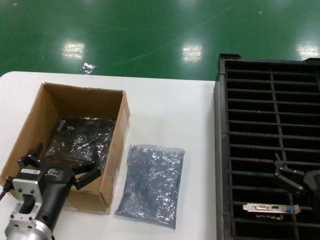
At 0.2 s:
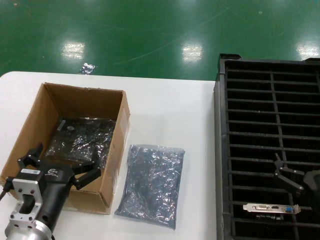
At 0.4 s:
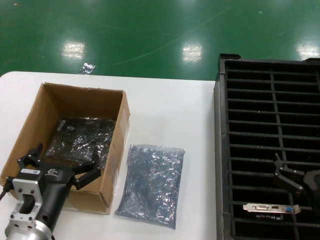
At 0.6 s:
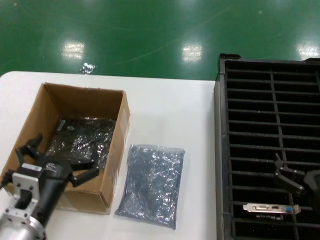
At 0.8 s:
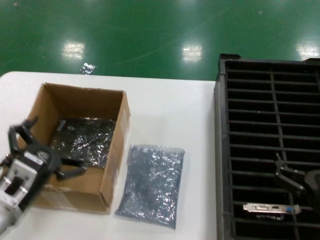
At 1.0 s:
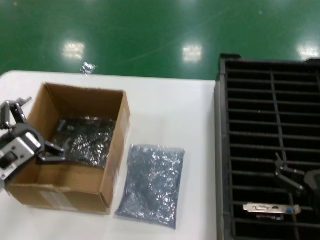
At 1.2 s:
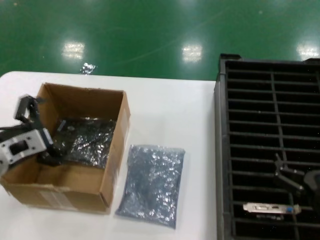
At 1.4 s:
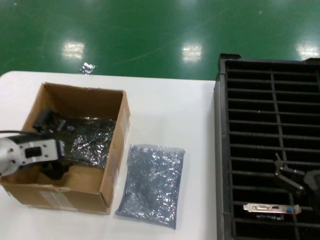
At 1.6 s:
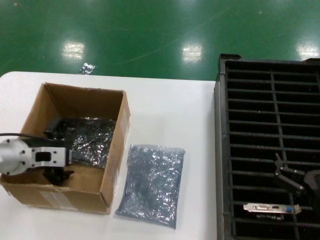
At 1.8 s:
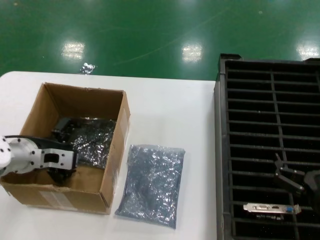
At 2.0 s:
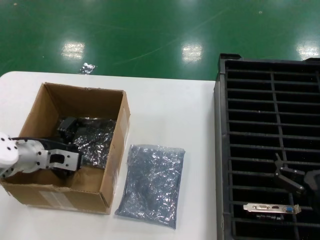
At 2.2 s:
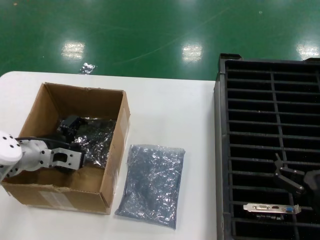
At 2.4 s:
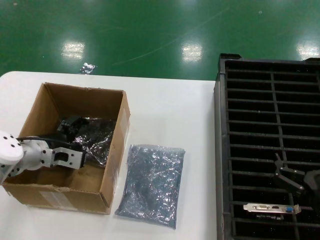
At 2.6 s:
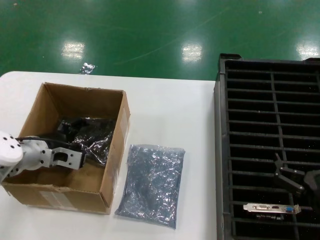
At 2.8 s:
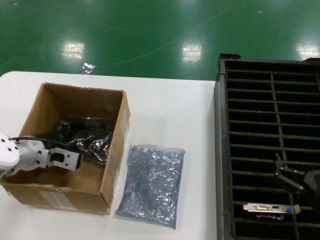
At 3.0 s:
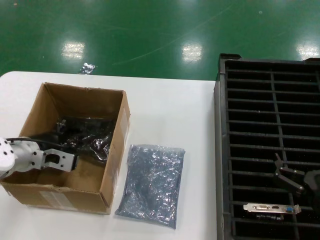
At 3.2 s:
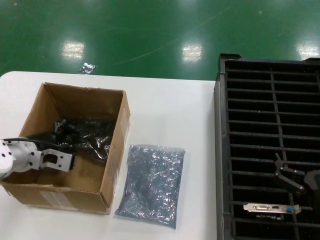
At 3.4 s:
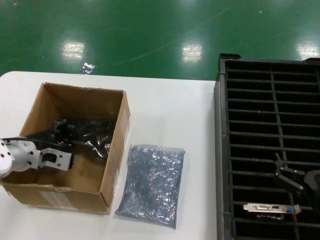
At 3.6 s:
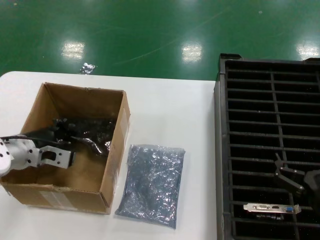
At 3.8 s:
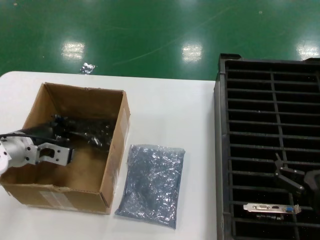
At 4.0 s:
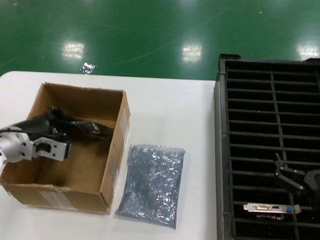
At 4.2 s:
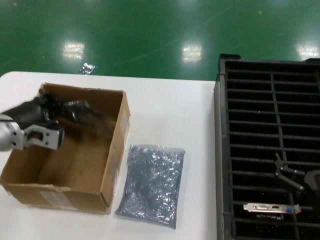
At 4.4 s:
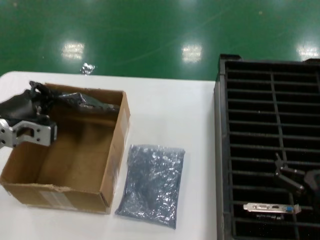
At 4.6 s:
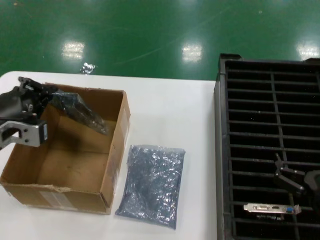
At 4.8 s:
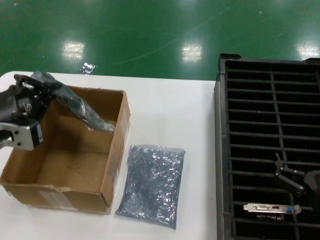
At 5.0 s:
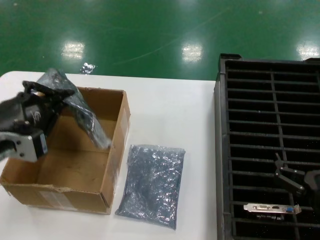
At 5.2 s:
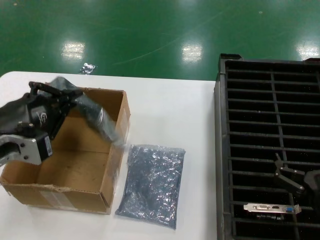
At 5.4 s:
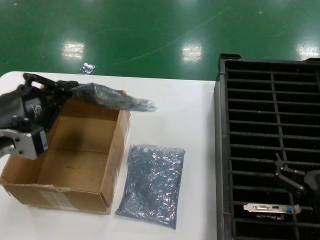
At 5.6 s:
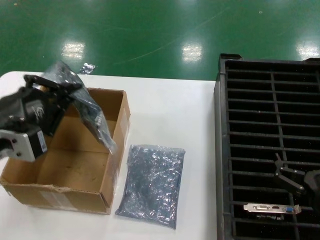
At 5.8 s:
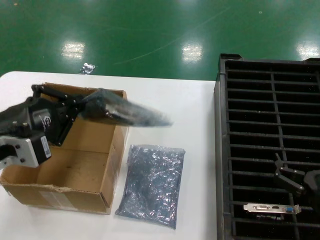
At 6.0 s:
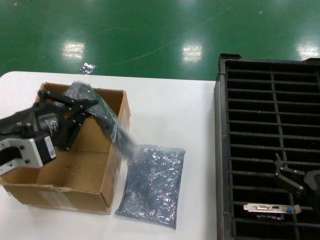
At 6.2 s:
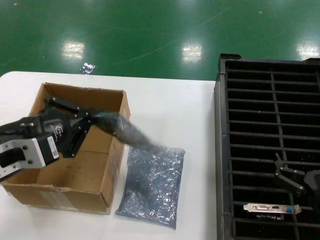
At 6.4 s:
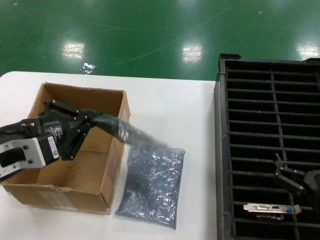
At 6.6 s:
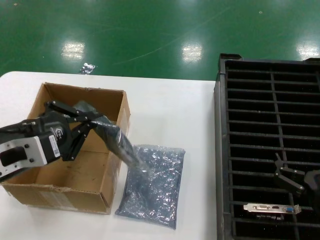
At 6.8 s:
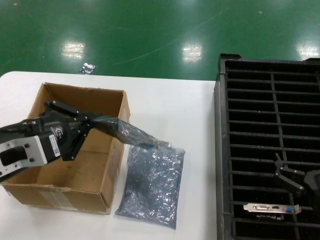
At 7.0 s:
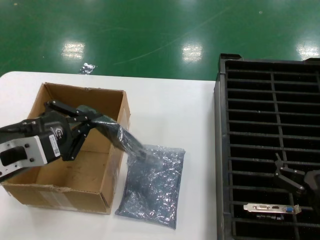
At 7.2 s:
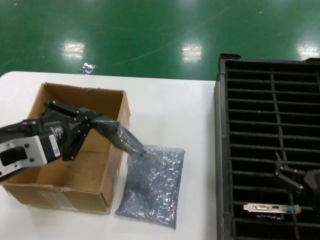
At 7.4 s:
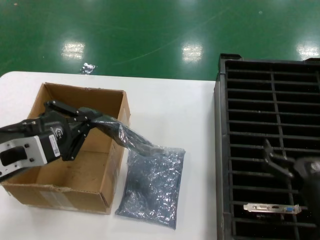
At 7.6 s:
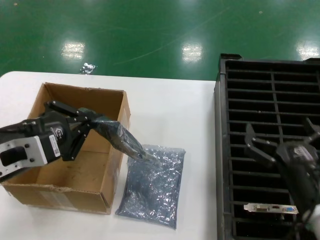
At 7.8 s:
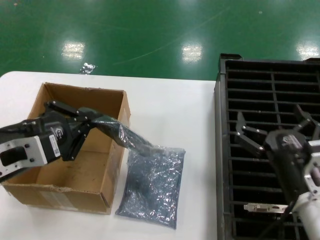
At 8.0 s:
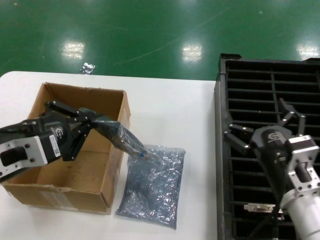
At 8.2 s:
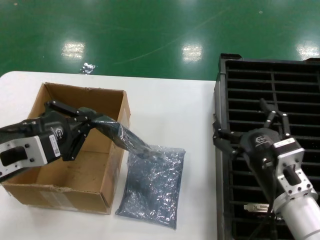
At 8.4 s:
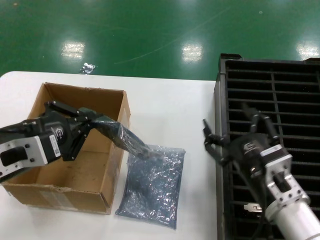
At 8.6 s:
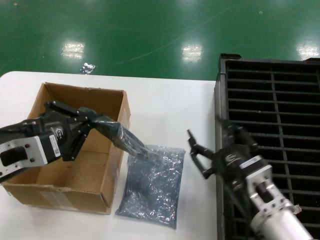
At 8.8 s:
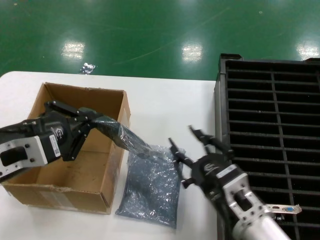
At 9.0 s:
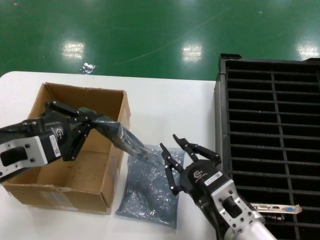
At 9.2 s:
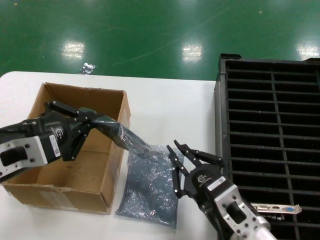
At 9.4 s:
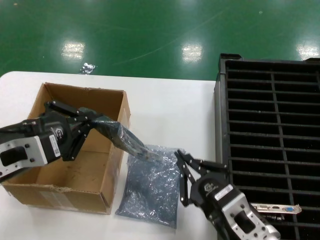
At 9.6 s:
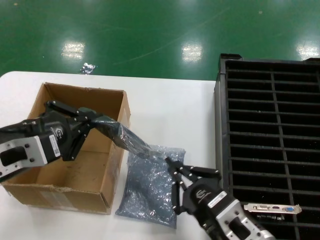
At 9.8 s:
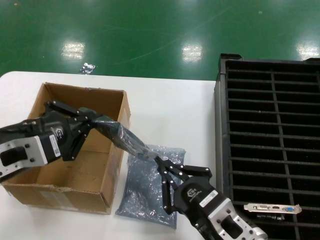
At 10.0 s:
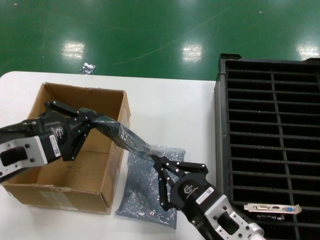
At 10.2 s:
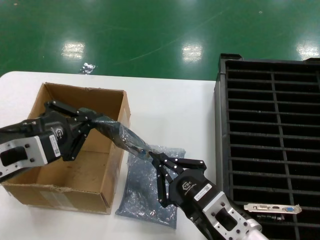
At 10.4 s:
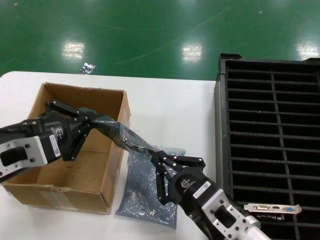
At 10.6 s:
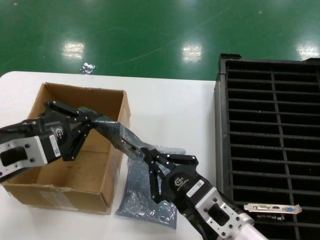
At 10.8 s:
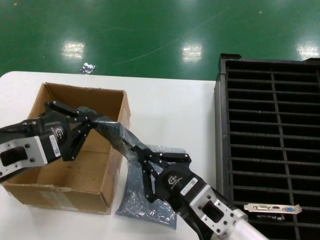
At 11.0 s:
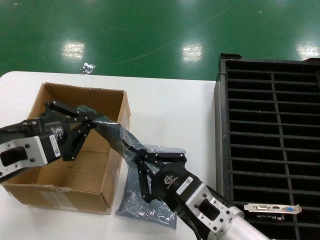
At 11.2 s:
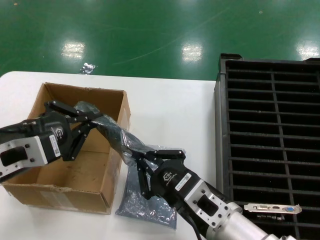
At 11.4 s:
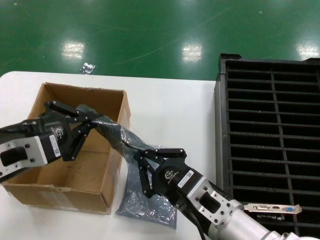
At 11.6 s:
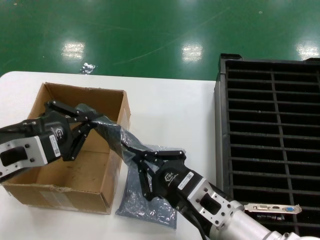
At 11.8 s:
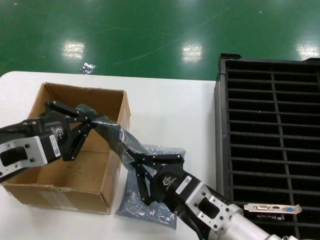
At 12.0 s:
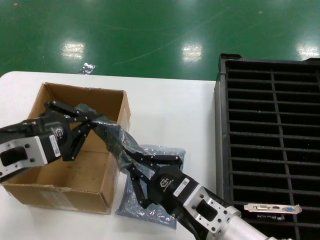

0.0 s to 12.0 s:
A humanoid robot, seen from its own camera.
Task of the whole recording: take out graphics card from box remove packaging put into black container.
Step, 0.0 to 3.6 s: Grasp the bag.
Step, 3.8 to 6.8 s: Lift the bag.
0.0 to 1.6 s: The left hand heads forward, to the left and upward, covering approximately 20 cm.
1.6 to 3.0 s: There are only small adjustments of the hands.
3.0 to 4.4 s: The left hand is displaced upward and backward by approximately 10 cm.
4.4 to 6.0 s: The left hand moves backward, some 15 cm.
6.0 to 7.6 s: The right hand shifts by about 5 cm.
7.6 to 9.0 s: The right hand goes roughly 10 cm to the left.
9.0 to 12.0 s: The hands move only a little.

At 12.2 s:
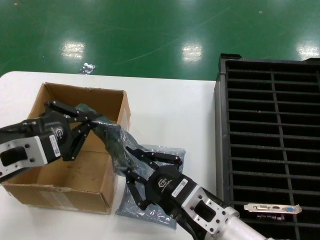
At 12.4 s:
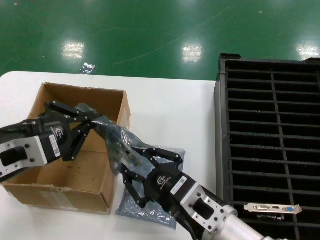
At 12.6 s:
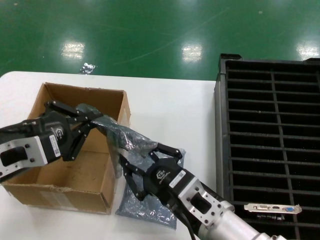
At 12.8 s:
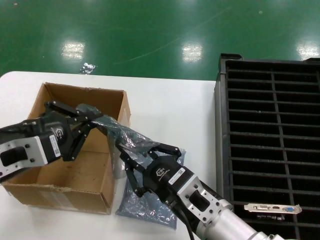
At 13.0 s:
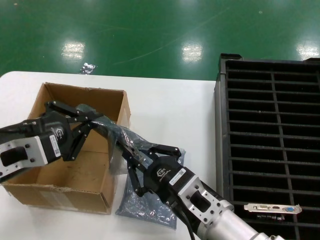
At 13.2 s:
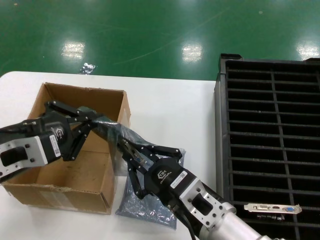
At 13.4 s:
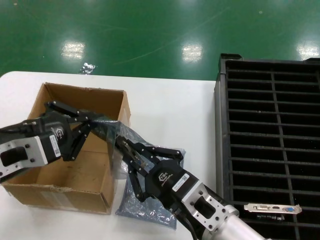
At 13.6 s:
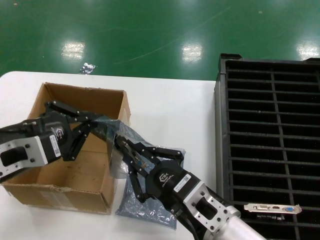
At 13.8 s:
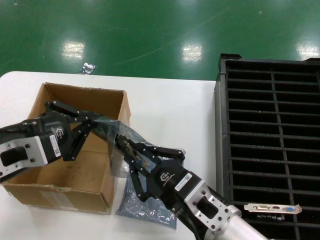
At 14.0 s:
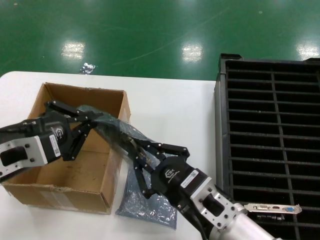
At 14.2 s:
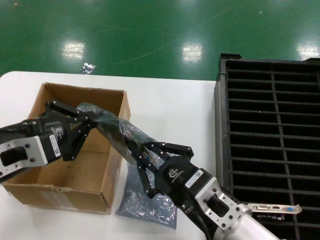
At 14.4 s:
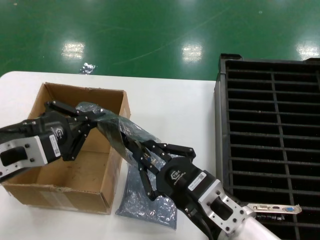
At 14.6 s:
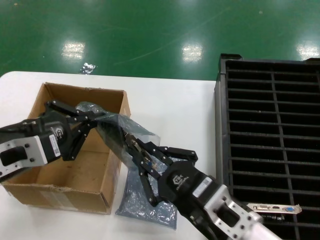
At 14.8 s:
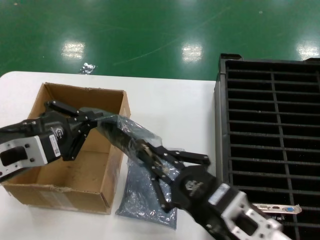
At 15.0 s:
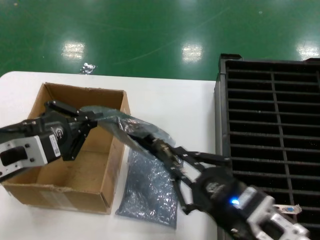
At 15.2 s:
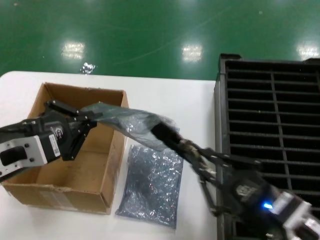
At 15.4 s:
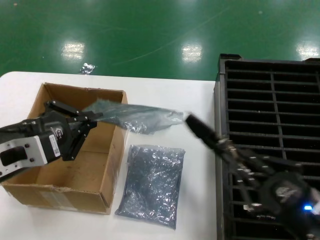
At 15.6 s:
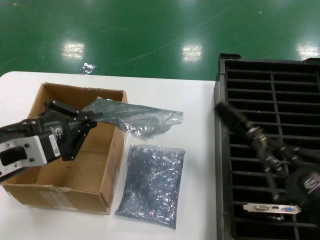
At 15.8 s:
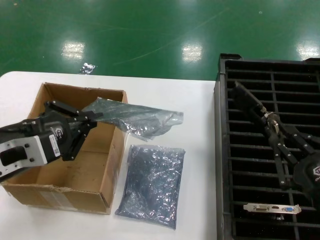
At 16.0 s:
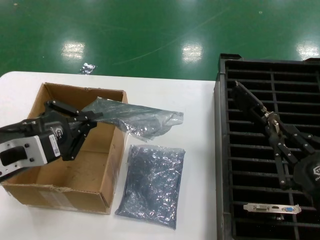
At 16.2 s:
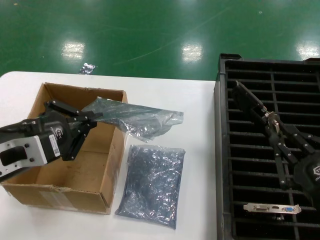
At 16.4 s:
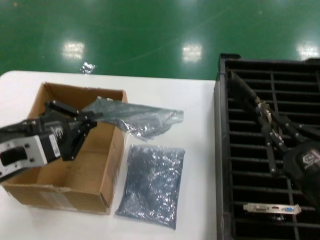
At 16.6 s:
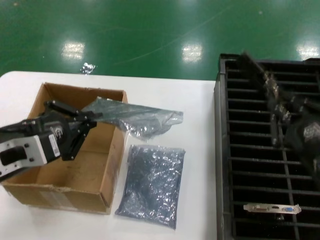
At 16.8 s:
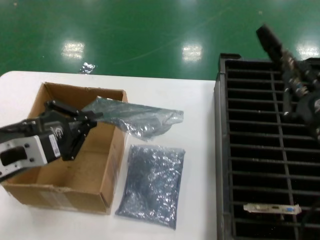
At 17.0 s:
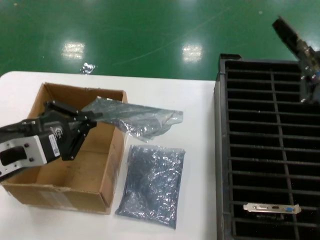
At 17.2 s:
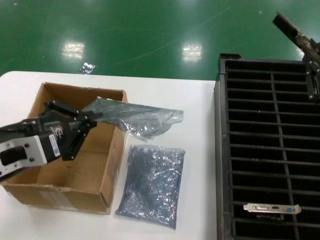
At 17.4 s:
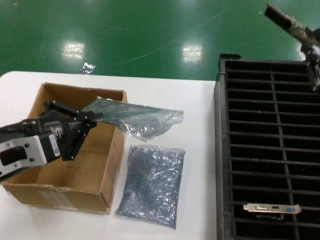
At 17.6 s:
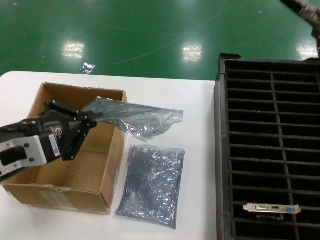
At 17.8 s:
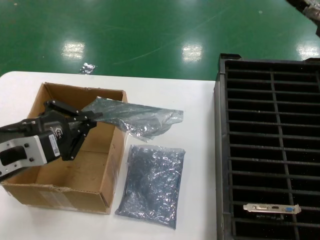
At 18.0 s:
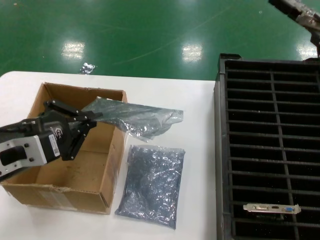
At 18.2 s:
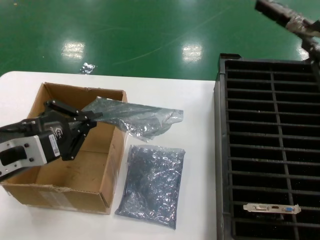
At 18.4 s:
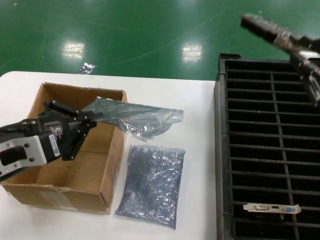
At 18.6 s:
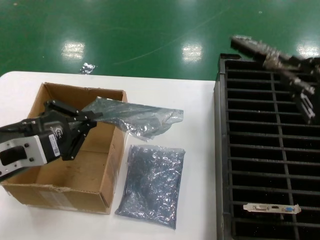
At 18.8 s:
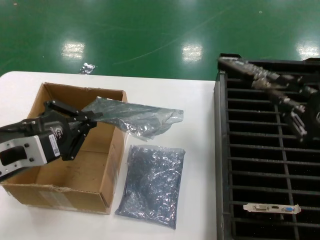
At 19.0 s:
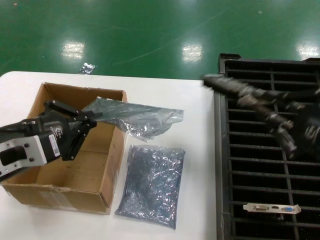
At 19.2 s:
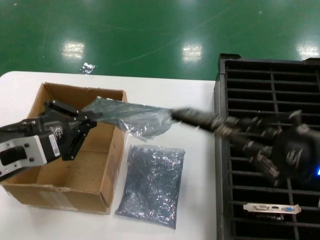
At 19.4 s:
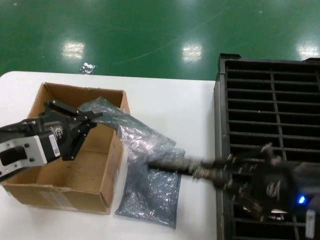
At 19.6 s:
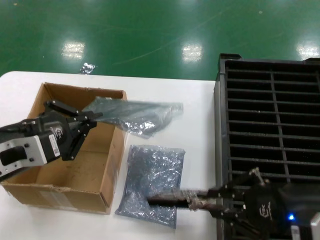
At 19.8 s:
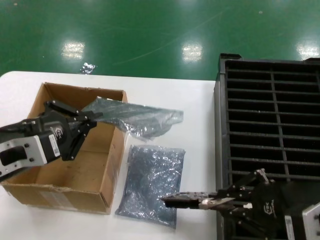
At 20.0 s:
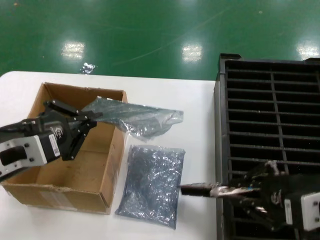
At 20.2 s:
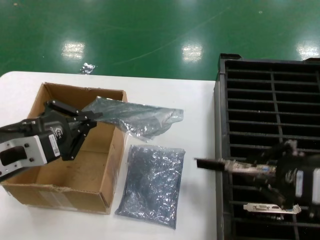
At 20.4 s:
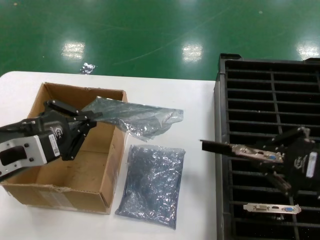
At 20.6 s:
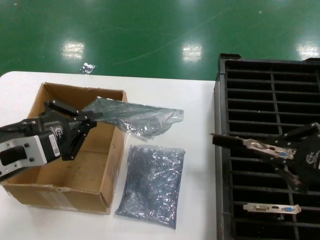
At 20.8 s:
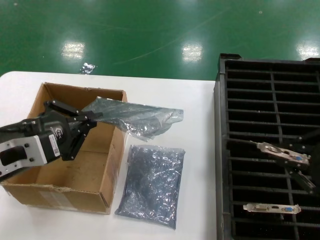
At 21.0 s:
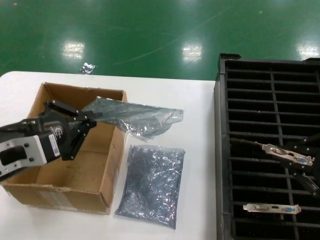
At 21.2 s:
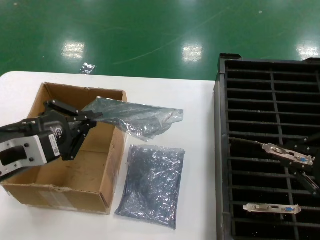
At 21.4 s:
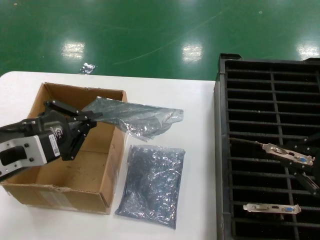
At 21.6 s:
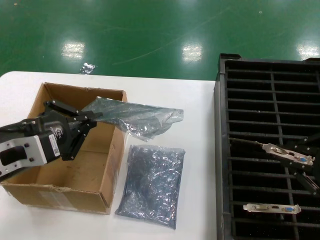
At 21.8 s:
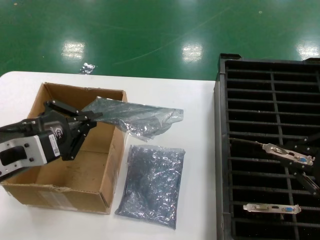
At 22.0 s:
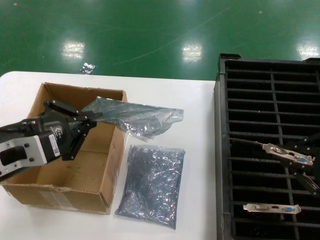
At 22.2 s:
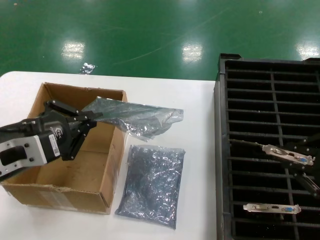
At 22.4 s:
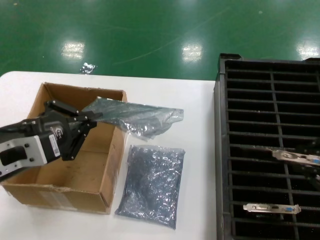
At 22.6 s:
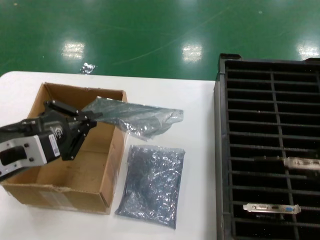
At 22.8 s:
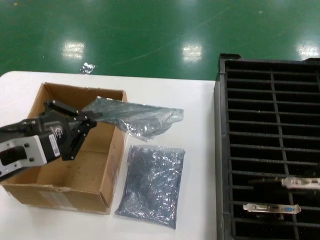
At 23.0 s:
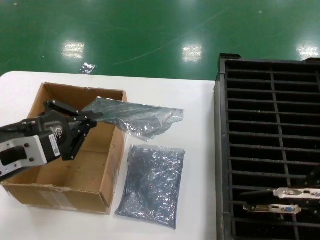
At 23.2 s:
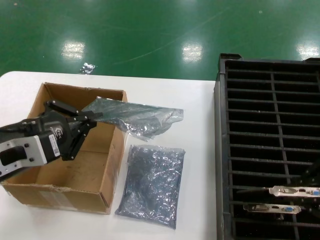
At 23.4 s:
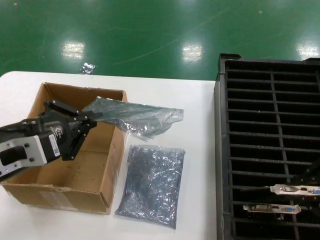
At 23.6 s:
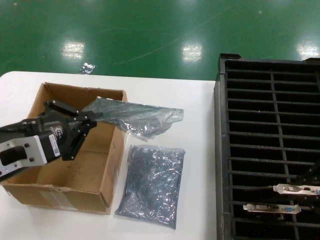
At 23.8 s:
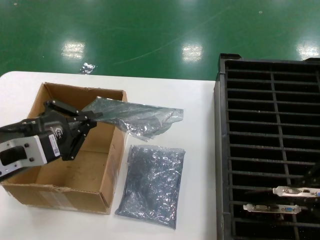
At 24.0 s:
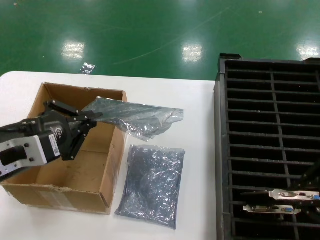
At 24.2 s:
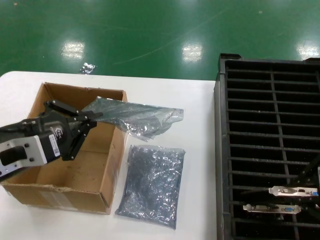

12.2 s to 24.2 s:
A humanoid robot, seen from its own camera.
Task of the whole recording: take out graphics card from box remove packaging put into black container.
Step, 12.2 to 15.2 s: Take out the hard disk of the bag.
12.2 to 13.8 s: The hands move only a little.
13.8 to 15.2 s: The right hand shifts approximately 10 cm to the right and backward.
15.2 to 16.6 s: The right hand goes approximately 5 cm to the right.
16.6 to 18.2 s: The right hand shifts about 15 cm upward.
18.2 to 19.8 s: The right hand heads downward, covering approximately 5 cm.
19.8 to 21.2 s: The right hand ends up approximately 5 cm from where it was.
21.2 to 22.6 s: The hands stay close to where they were, moving slightly.
22.6 to 24.2 s: The hands stay close to where they were, moving slightly.
